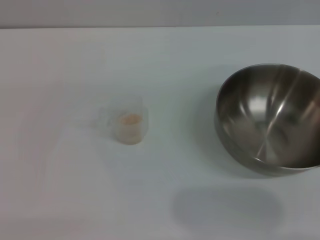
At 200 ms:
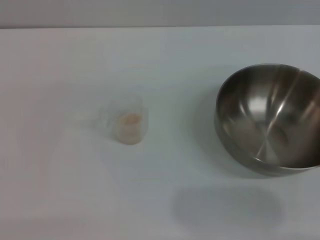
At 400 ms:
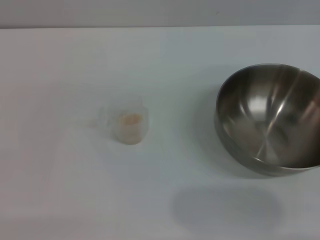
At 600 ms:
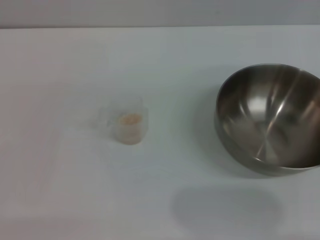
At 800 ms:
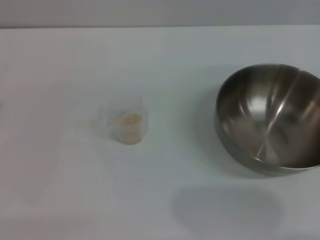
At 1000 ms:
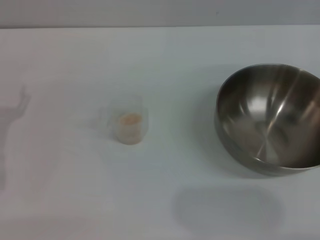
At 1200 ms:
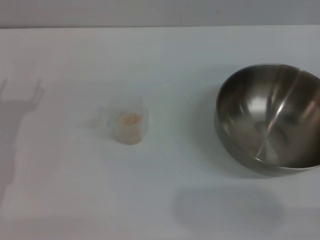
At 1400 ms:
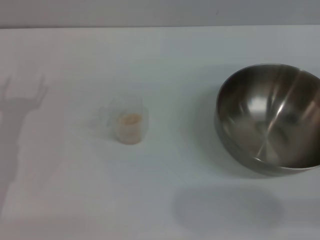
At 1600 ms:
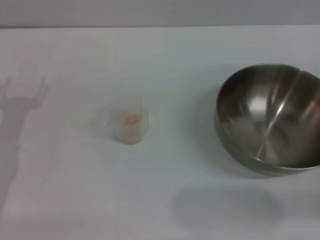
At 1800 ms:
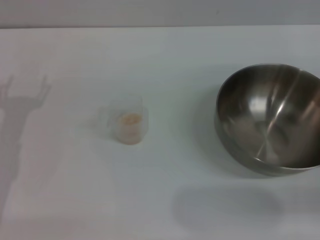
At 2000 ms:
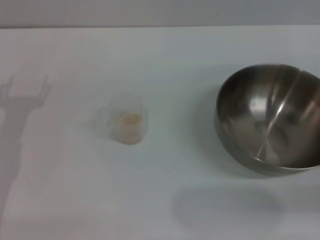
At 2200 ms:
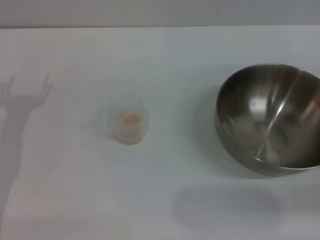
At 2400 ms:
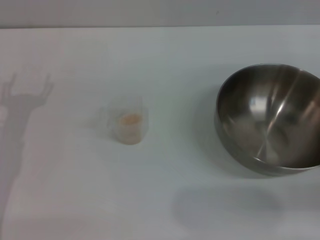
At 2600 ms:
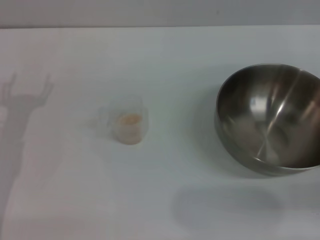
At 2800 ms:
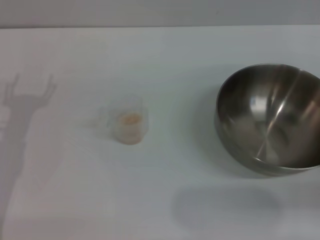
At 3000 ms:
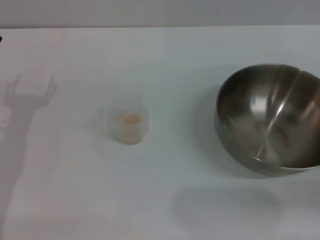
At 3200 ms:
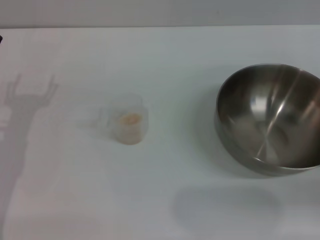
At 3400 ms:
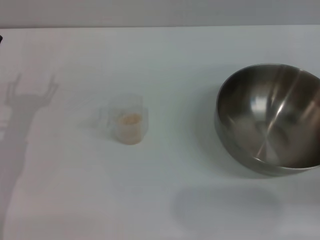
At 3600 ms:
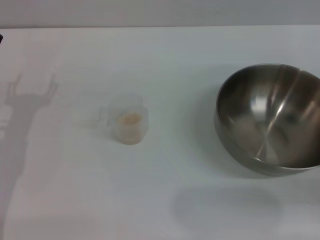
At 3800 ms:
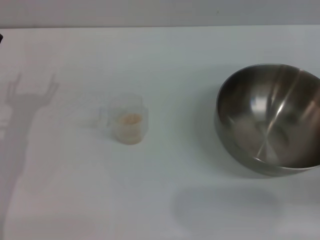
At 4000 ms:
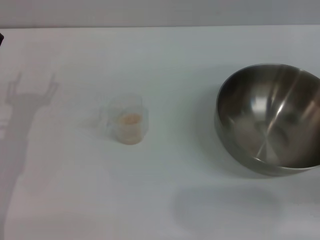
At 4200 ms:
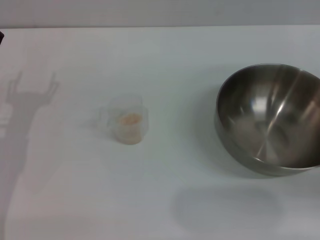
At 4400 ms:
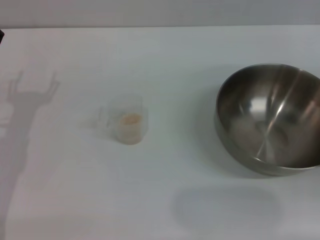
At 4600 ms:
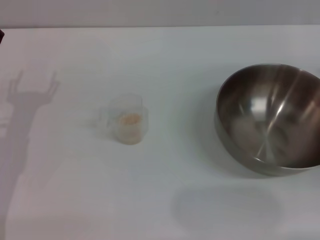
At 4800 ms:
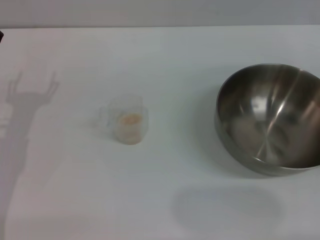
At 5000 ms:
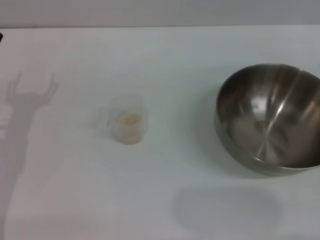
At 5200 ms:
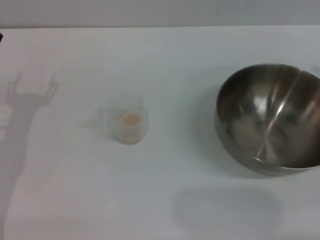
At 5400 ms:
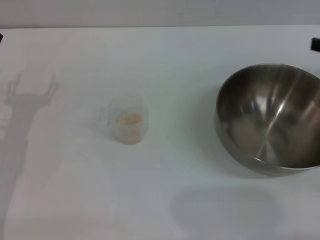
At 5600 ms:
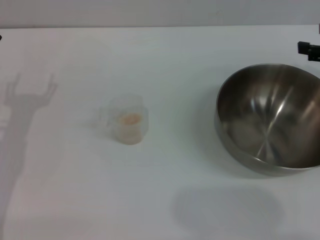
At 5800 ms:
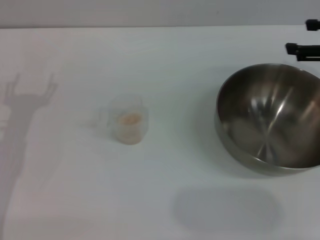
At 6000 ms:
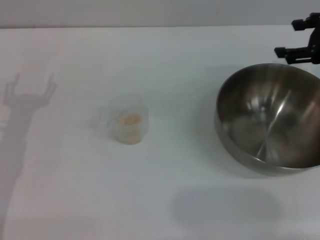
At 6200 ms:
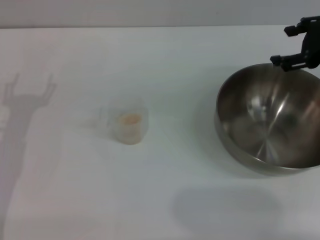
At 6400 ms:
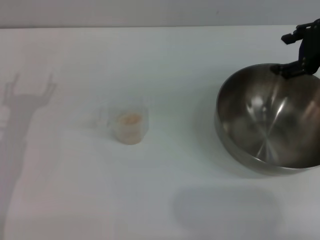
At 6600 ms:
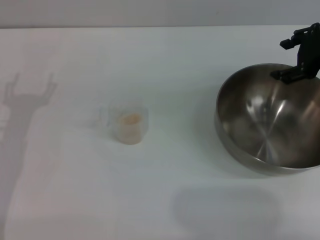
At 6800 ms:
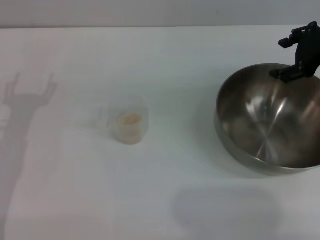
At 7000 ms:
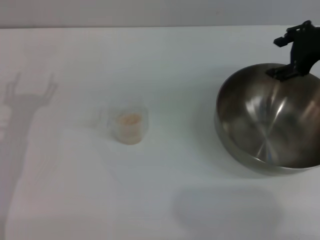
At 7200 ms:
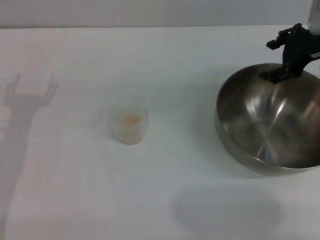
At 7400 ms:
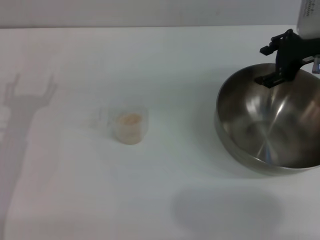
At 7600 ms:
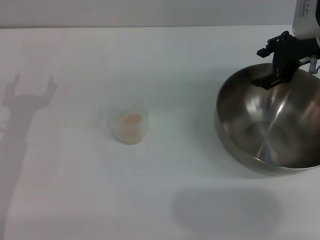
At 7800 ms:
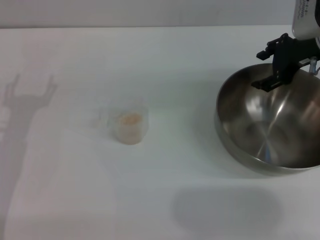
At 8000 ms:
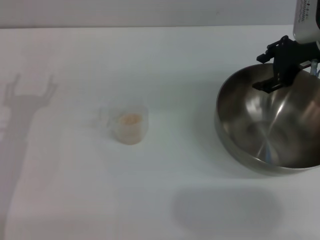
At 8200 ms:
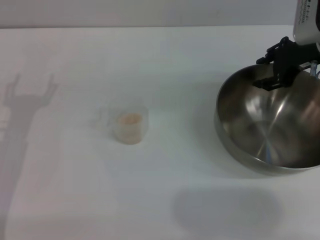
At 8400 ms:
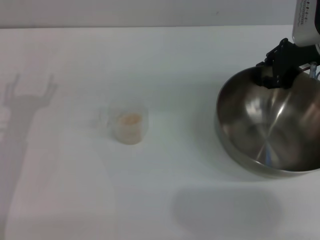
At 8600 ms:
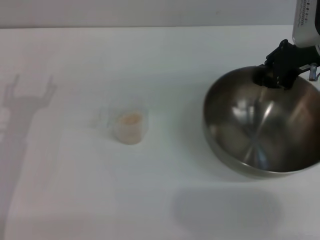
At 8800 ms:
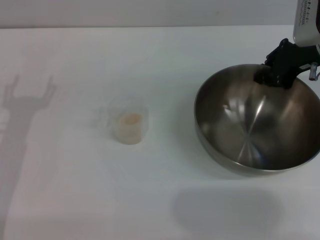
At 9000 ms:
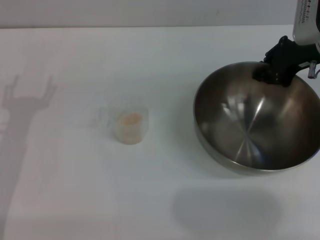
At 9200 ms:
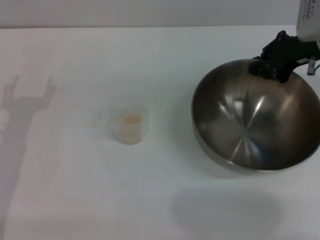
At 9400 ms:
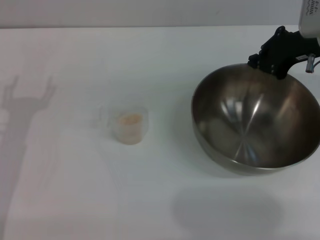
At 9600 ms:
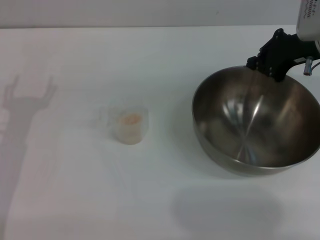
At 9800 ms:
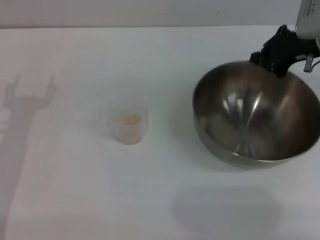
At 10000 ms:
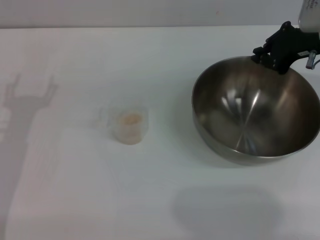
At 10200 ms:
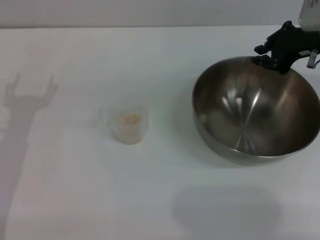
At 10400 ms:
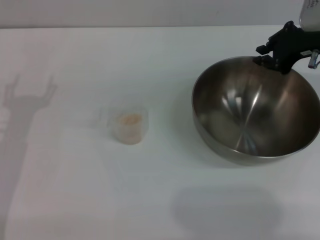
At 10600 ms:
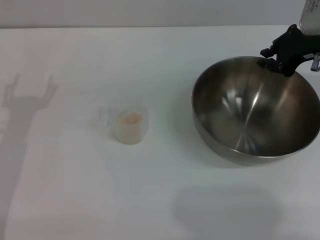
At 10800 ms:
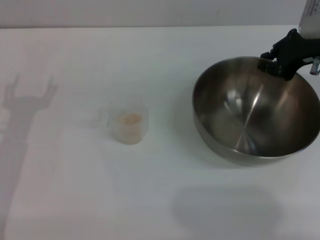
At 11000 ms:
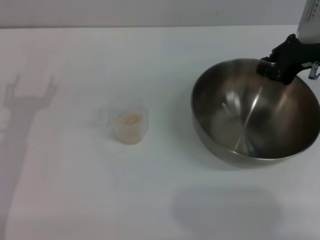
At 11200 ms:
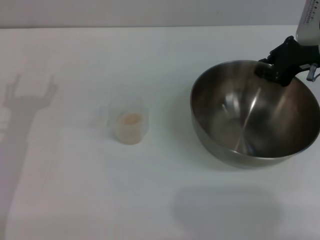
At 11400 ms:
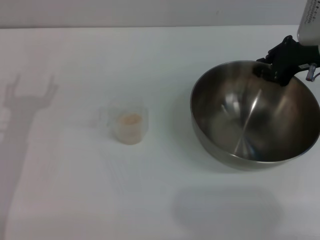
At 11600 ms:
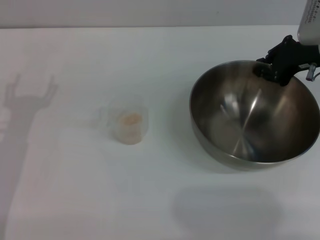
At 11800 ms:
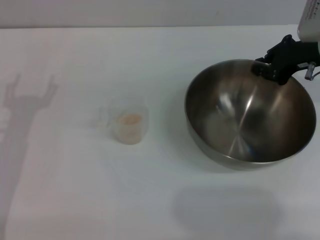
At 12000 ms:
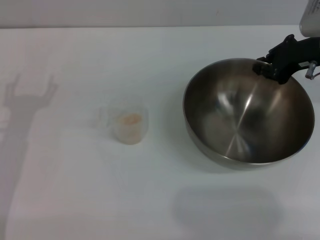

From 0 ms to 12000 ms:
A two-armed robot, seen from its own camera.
Task of the whole recording: Place the bowl in the middle of the table with one hand and pour the rice from the grain cup into it with the other hand.
From 4400 ms to 6000 ms: The right gripper travels forward, upward and to the left by roughly 15 cm.
From 6000 ms to 7600 ms: The right gripper moves to the left and forward, about 10 cm.
From 7600 ms to 9000 ms: The right gripper closes its fingers.
From 9000 ms to 12000 ms: There are only small adjustments of the grippers.

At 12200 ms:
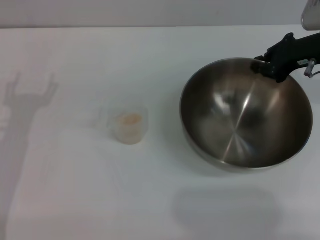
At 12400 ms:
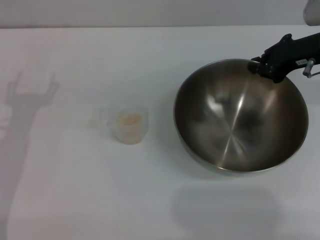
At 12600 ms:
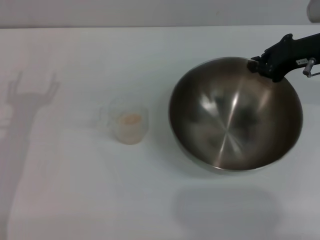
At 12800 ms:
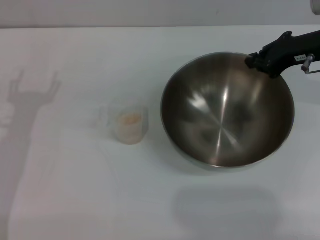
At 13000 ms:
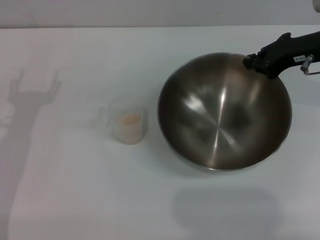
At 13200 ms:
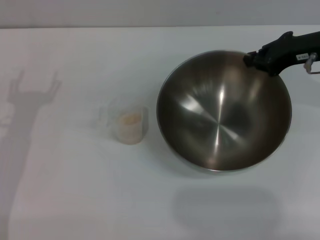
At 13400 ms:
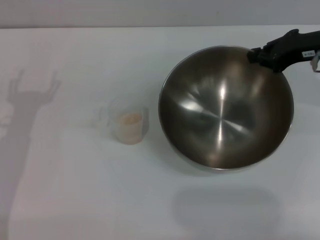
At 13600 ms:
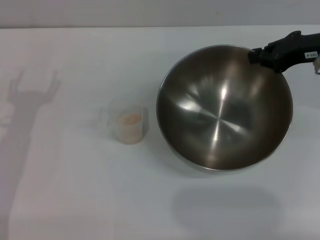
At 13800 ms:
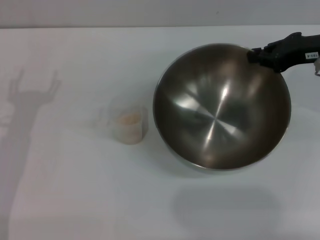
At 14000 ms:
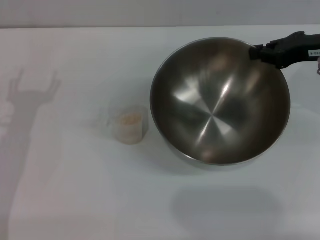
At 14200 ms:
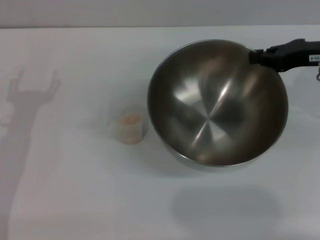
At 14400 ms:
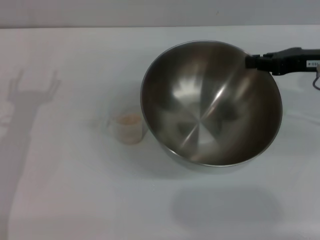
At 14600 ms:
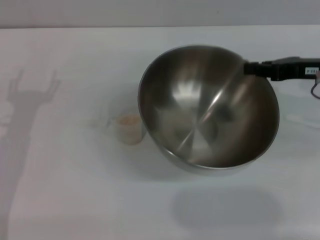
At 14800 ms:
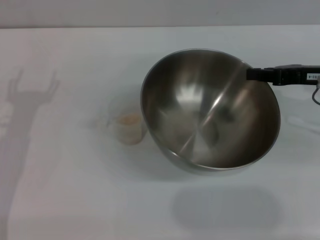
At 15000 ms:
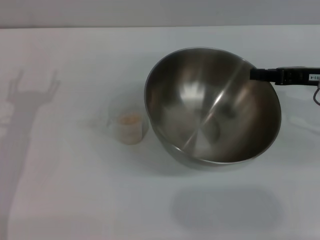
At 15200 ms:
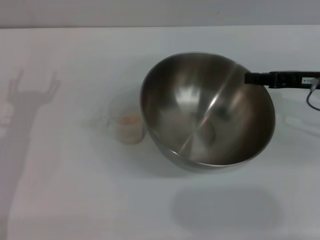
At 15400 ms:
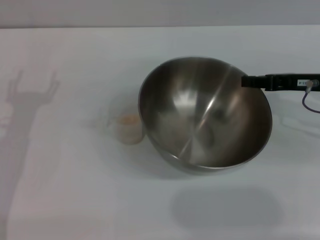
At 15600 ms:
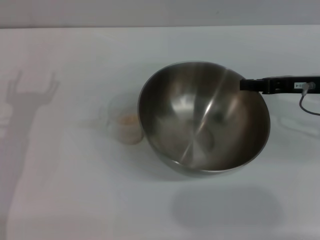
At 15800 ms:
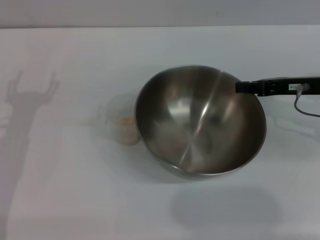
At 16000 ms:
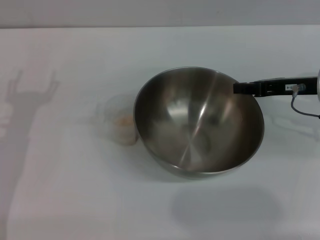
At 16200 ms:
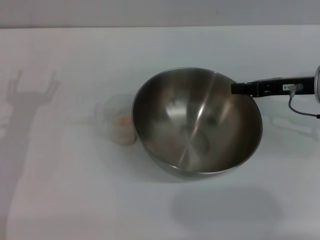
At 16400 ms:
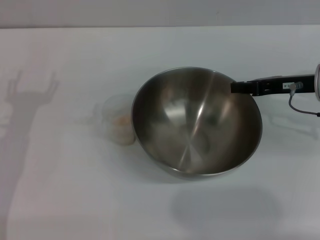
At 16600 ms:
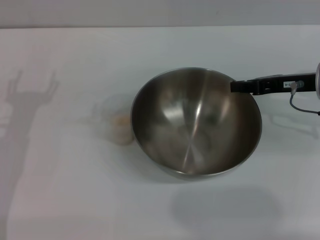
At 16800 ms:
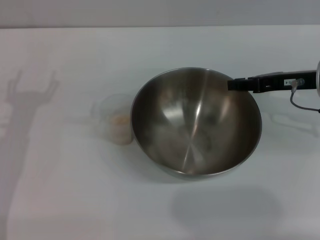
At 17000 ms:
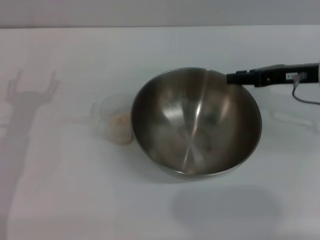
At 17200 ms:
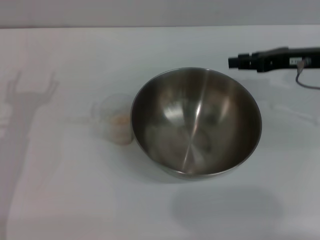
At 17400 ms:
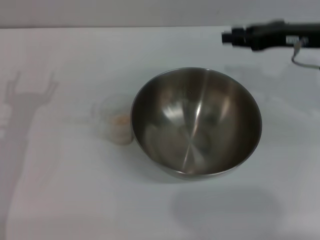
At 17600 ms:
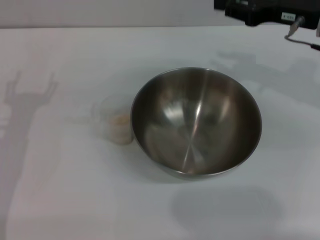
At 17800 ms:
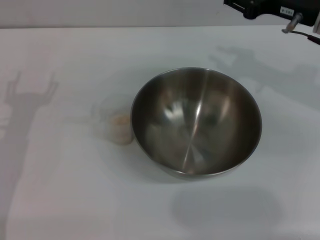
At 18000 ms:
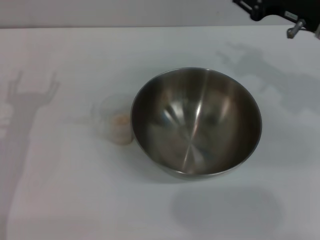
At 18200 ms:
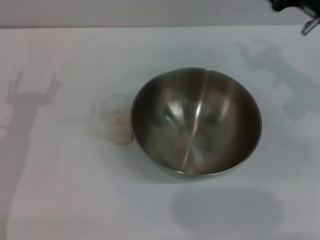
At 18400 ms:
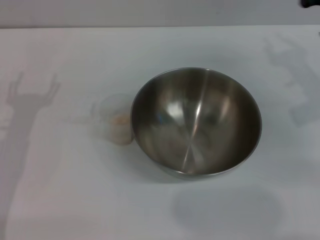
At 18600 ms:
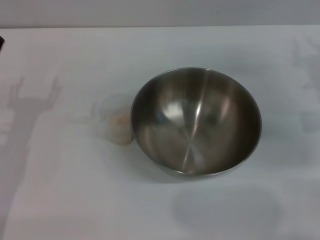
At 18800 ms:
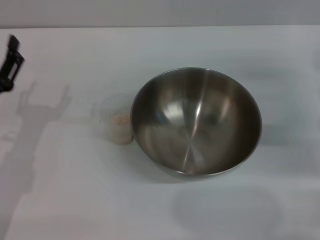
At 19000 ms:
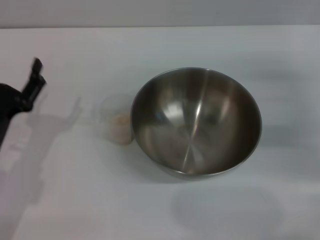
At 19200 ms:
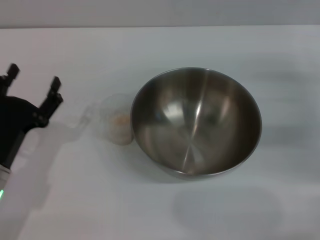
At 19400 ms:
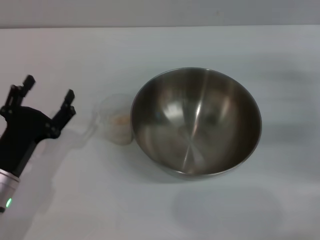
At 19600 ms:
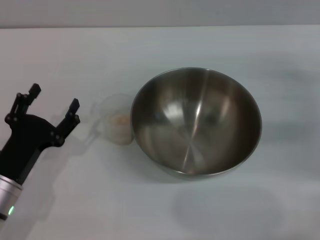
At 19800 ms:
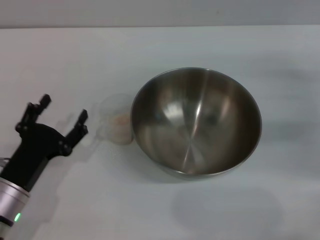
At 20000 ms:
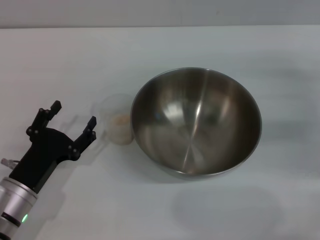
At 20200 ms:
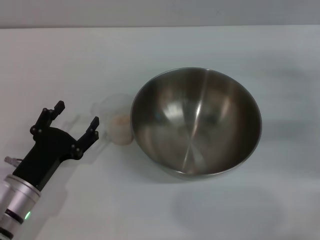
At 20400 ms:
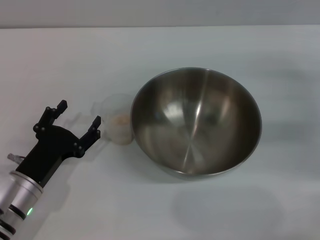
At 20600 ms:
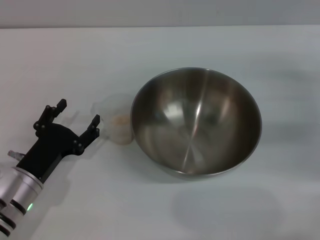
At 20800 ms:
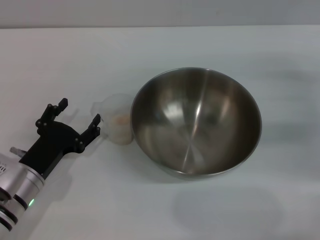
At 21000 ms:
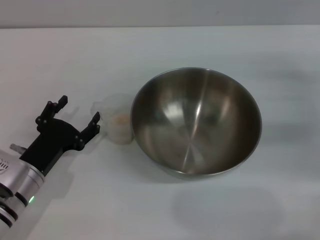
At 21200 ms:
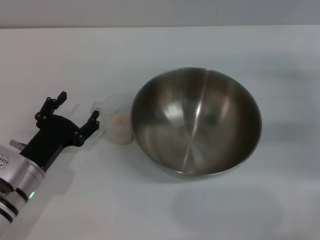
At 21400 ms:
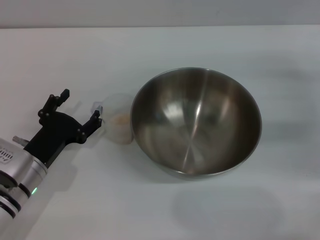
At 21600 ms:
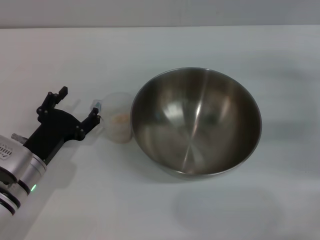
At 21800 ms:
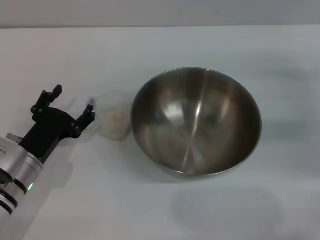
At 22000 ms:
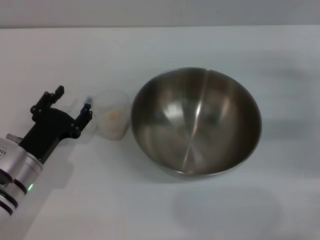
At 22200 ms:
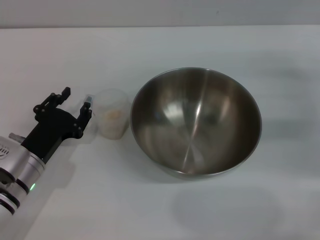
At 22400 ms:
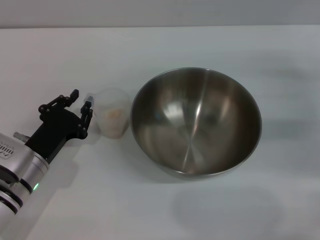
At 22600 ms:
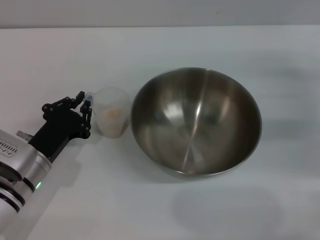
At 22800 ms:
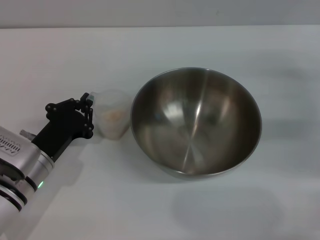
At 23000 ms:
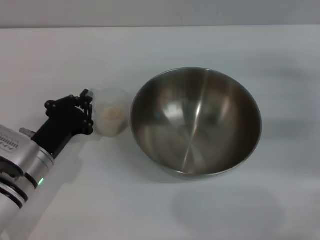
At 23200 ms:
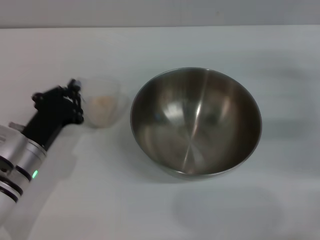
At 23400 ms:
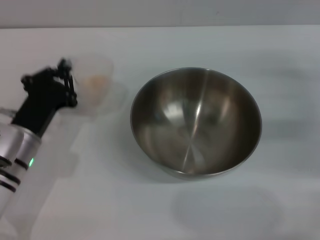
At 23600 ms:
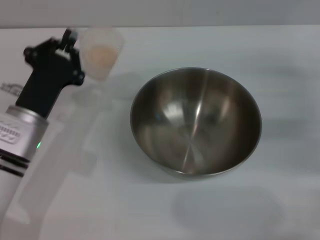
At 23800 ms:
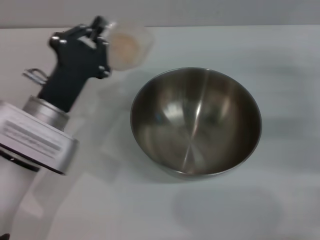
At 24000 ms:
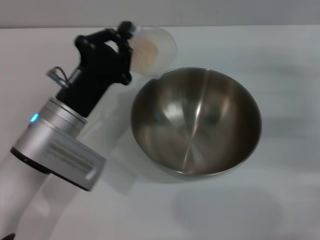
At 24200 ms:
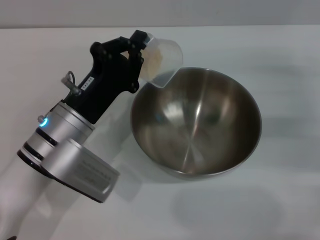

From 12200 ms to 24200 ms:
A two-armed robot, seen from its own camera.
Task of the whole recording: Place the bowl in the middle of the table with one hand and pour the rice from the grain cup into it with the other hand.
Step, from 14000 ms to 17800 ms: Place the bowl in the center of view with the right gripper.
Step, from 18000 ms to 23600 ms: Pick up the cup with rice in it with the left gripper.
From 13800 ms to 15200 ms: The right gripper shifts some 5 cm downward.
From 15200 ms to 16600 ms: The grippers move only a little.
From 16600 ms to 18200 ms: The right gripper opens its fingers.
From 18200 ms to 19800 ms: The left gripper travels backward and downward by approximately 10 cm, while the right gripper heads to the right and downward, covering about 10 cm.
From 19800 ms to 21200 ms: The grippers make only small movements.
From 21200 ms to 22600 ms: The left gripper closes its fingers.
From 22600 ms to 24200 ms: The left gripper is displaced to the right and upward by approximately 10 cm.
